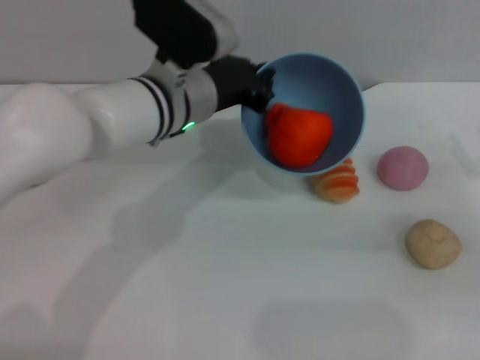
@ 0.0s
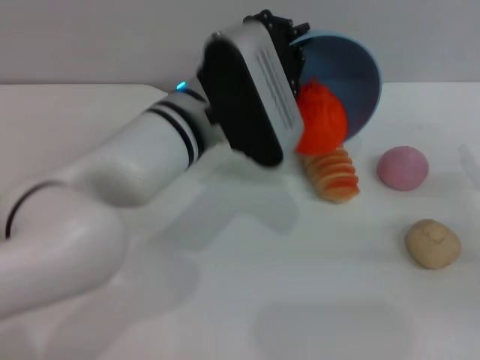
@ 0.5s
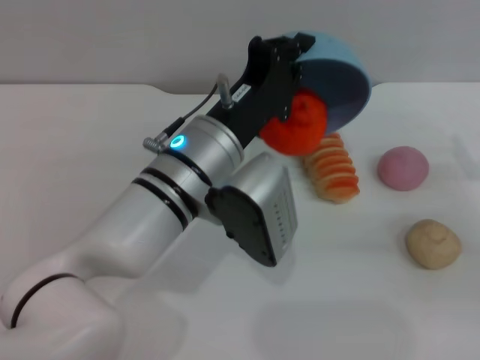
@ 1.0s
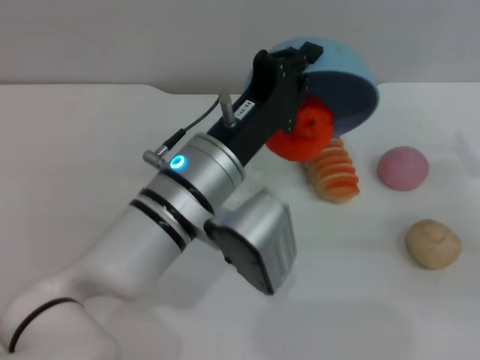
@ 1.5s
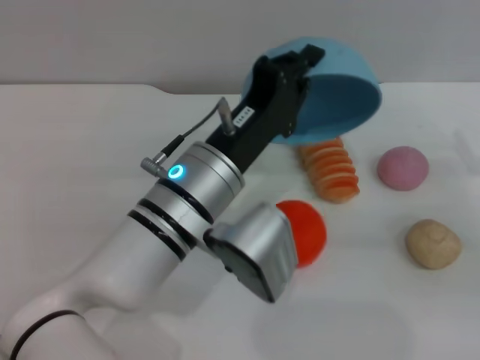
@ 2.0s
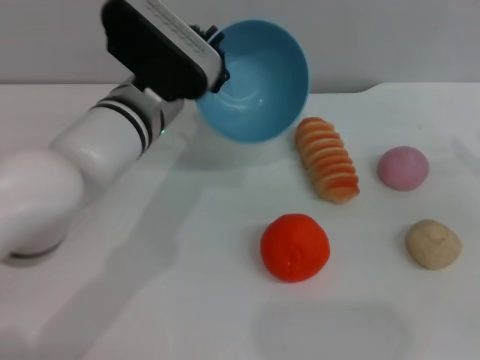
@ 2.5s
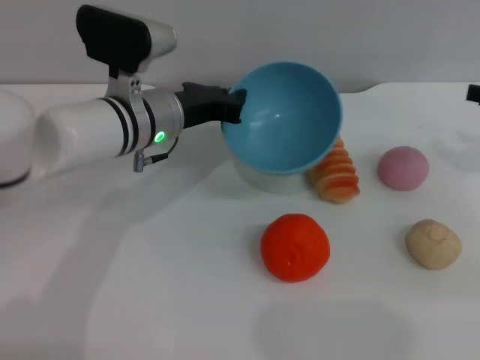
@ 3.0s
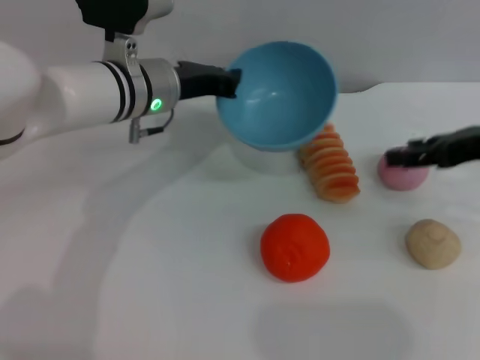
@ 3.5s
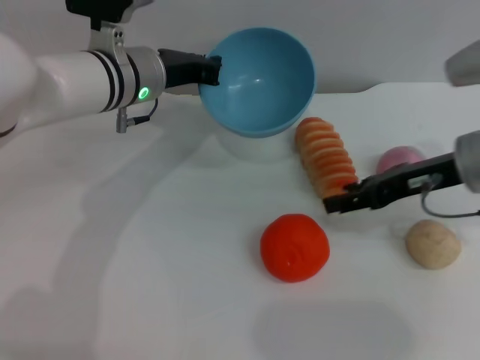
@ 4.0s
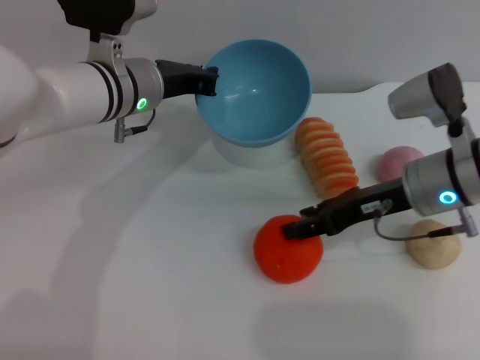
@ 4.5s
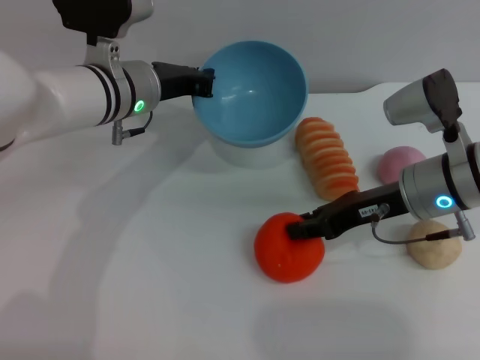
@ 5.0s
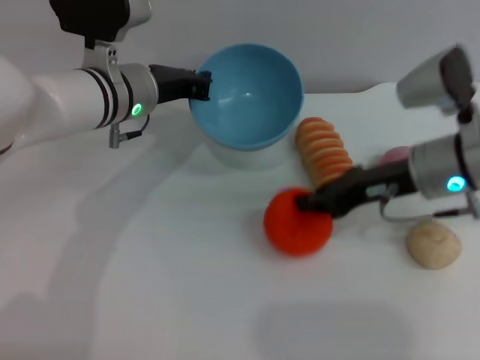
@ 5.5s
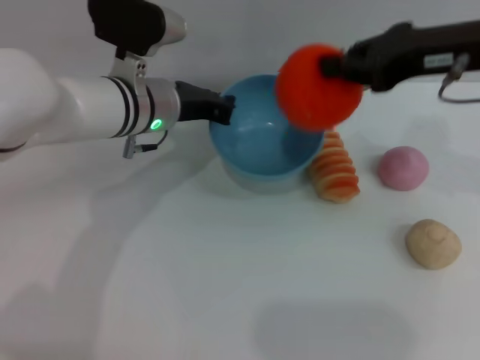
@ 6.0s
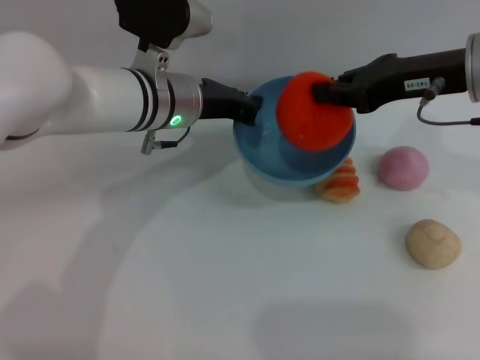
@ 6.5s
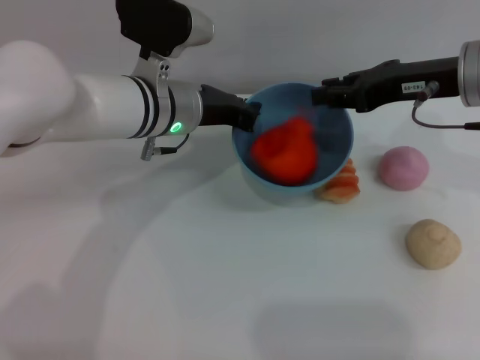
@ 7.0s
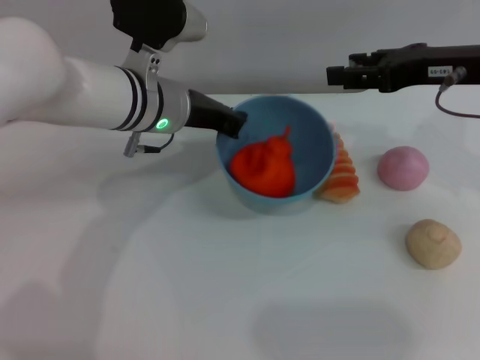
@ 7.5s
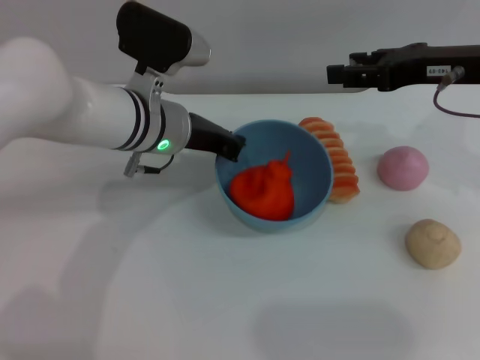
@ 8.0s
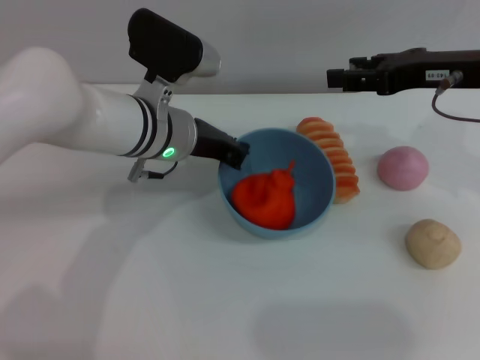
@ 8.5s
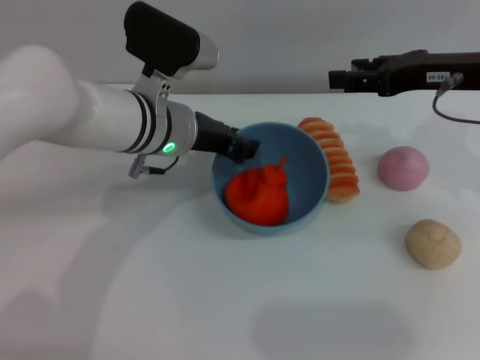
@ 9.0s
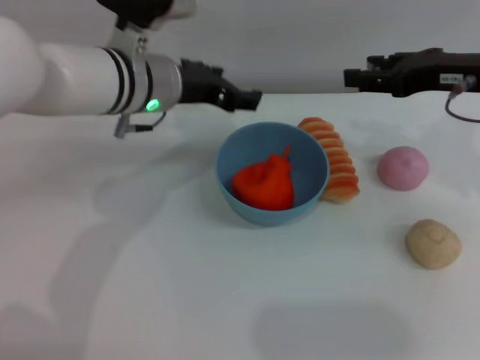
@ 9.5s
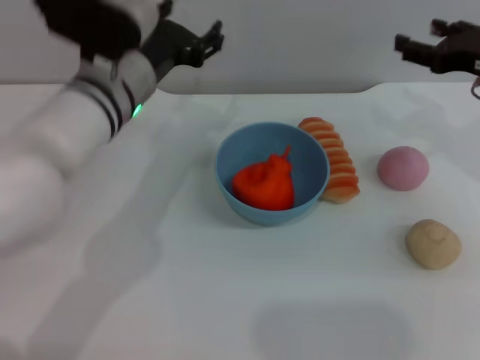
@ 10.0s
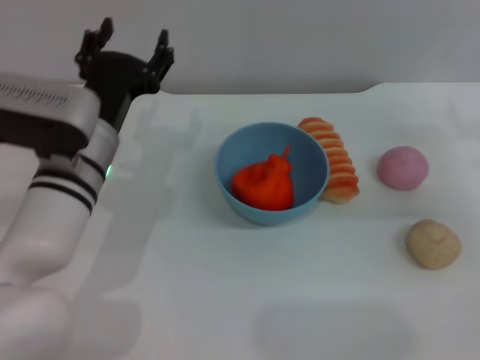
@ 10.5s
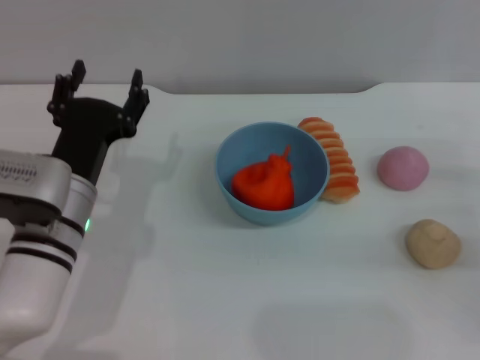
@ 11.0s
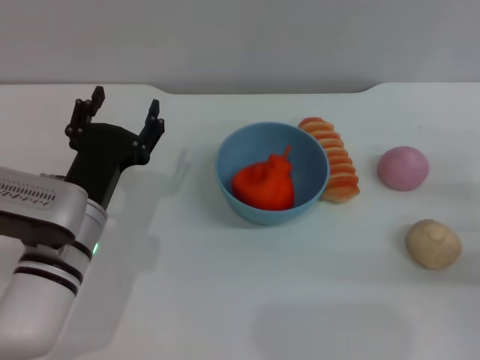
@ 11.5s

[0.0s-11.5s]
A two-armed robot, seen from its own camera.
Task of the whole recording: put the orange into the blue bowl and pour it out repeatedly.
Step, 0.0s to 2.0s: Pour the orange out of the bowl.
Step, 2.5s to 5.5s: Pick up the orange with the right gripper.
Step, 6.0s to 7.0s: Place the orange into the bowl.
Step, 7.5s to 9.0s: Place the bowl on the table.
0.0s to 2.0s: The left gripper goes approximately 10 cm backward.
2.0s to 4.0s: The left gripper goes roughly 15 cm forward and to the left, while the right gripper shifts some 15 cm to the left and upward.
4.0s to 6.0s: The right gripper moves upward, approximately 10 cm, and closes.
6.0s to 7.5s: The right gripper changes place by some 5 cm, and opens its fingers.
7.5s to 9.5s: The left gripper opens up.
9.5s to 11.5s: The right gripper shifts approximately 20 cm downward, backward and to the right. Meanwhile the left gripper is displaced backward, downward and to the left by about 20 cm.
